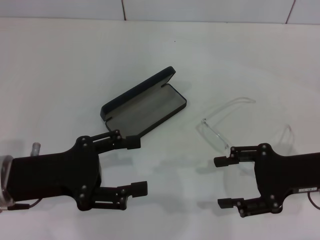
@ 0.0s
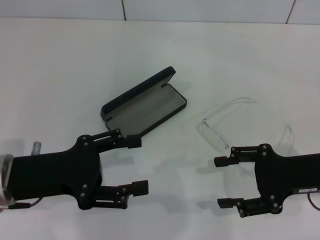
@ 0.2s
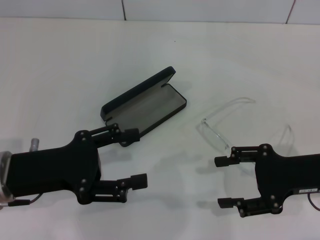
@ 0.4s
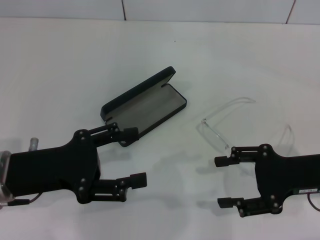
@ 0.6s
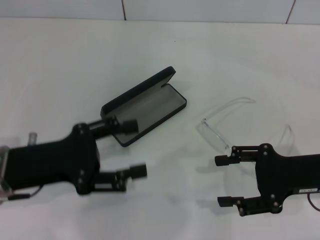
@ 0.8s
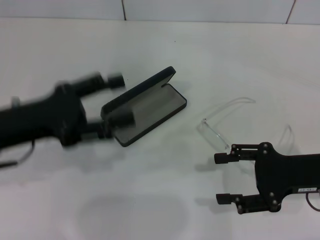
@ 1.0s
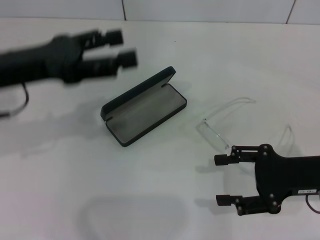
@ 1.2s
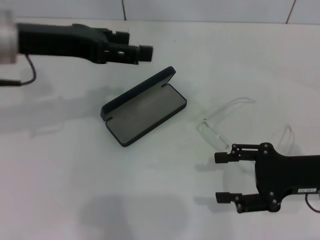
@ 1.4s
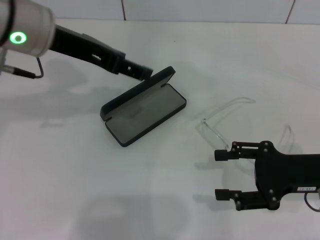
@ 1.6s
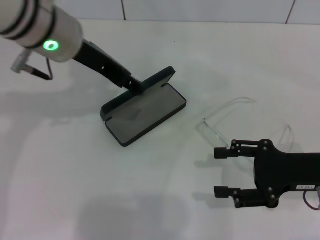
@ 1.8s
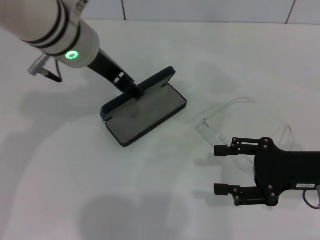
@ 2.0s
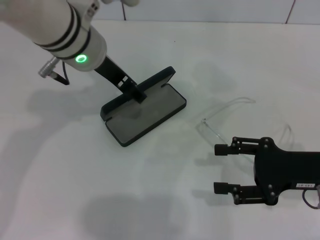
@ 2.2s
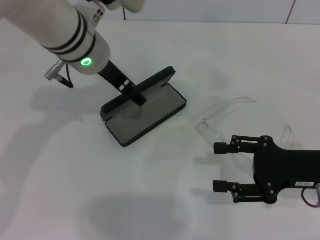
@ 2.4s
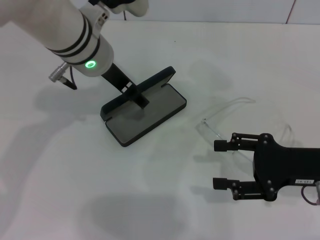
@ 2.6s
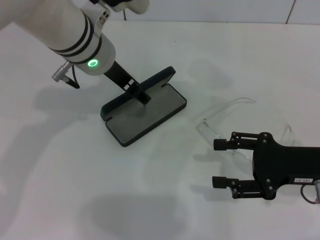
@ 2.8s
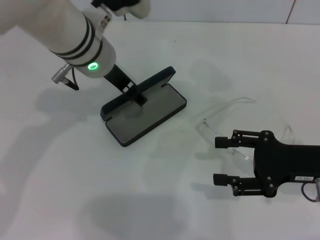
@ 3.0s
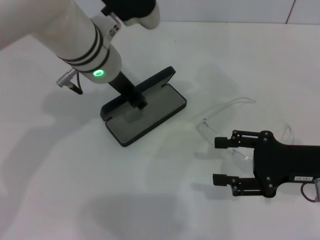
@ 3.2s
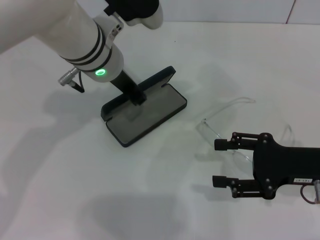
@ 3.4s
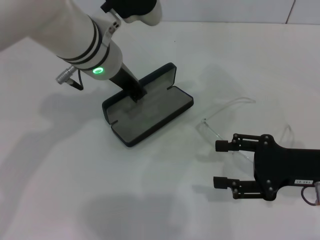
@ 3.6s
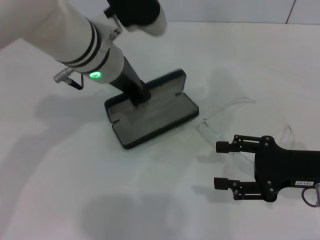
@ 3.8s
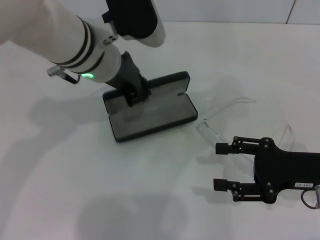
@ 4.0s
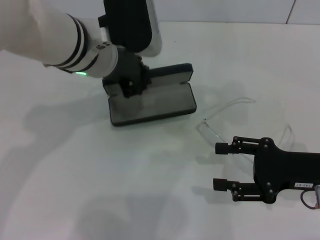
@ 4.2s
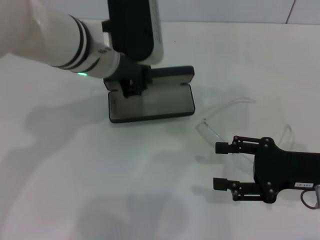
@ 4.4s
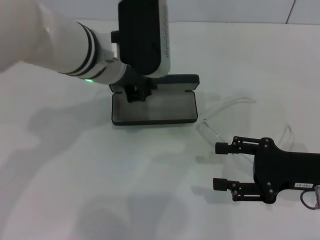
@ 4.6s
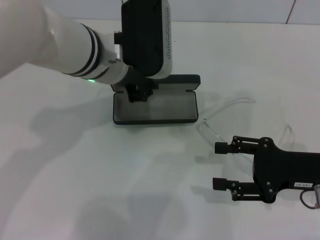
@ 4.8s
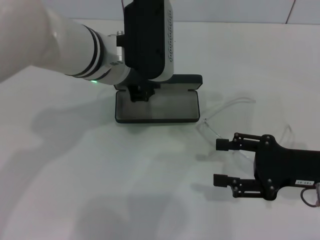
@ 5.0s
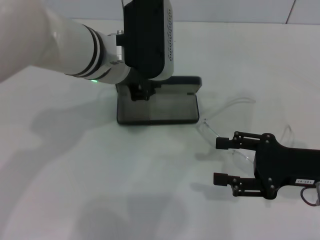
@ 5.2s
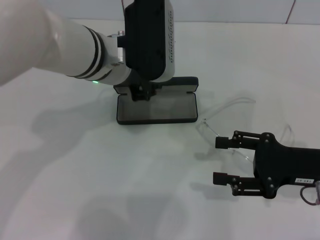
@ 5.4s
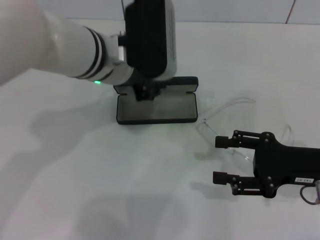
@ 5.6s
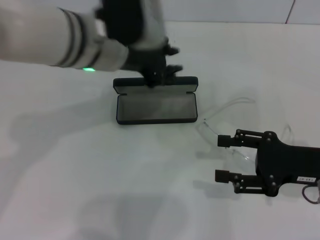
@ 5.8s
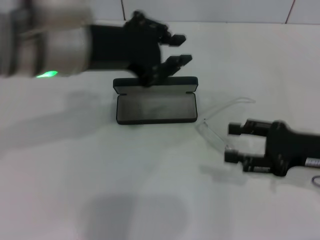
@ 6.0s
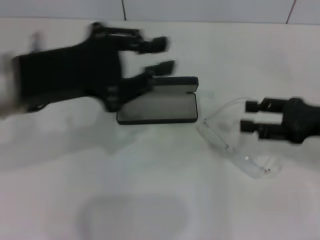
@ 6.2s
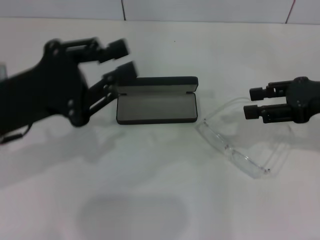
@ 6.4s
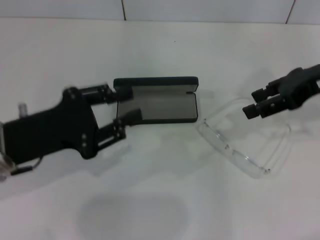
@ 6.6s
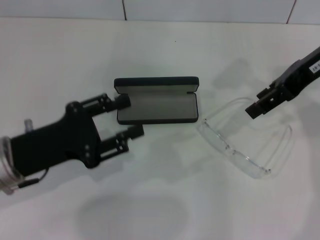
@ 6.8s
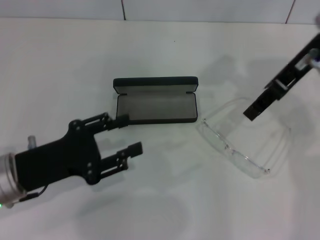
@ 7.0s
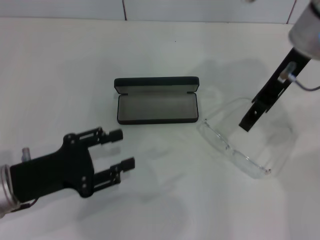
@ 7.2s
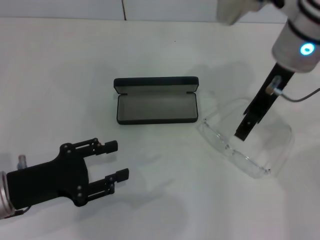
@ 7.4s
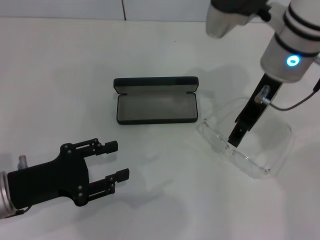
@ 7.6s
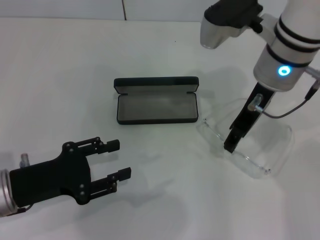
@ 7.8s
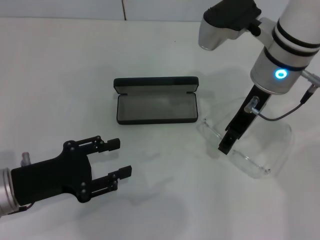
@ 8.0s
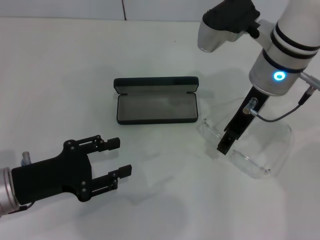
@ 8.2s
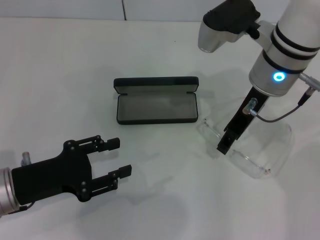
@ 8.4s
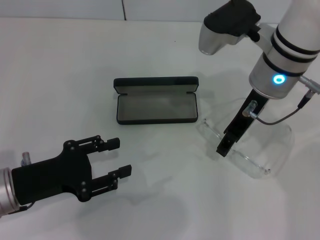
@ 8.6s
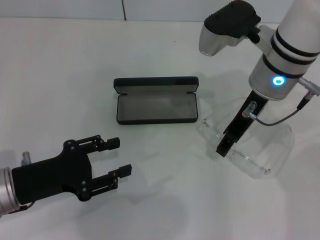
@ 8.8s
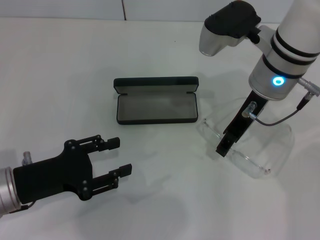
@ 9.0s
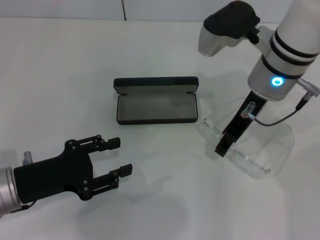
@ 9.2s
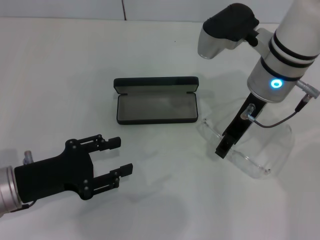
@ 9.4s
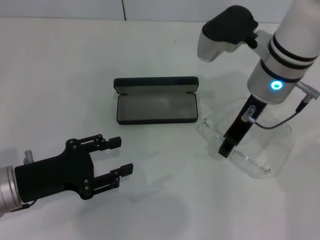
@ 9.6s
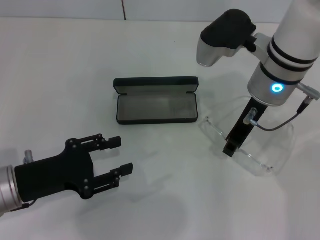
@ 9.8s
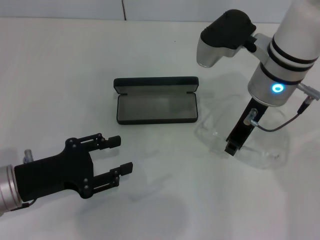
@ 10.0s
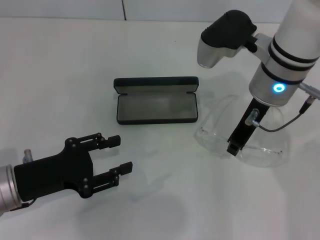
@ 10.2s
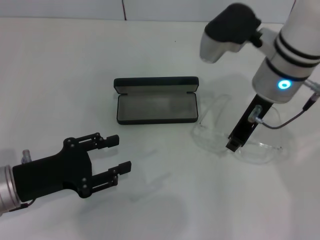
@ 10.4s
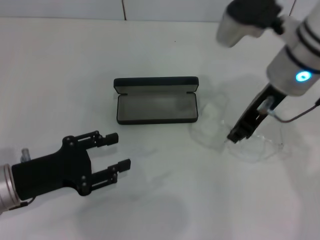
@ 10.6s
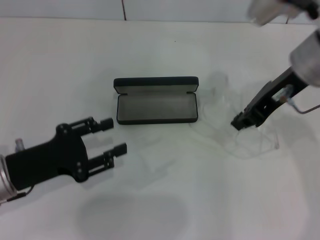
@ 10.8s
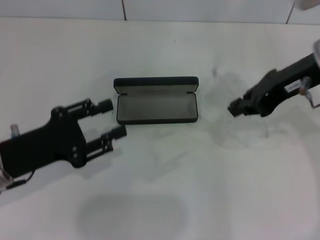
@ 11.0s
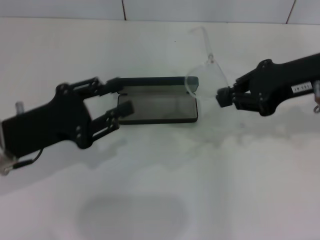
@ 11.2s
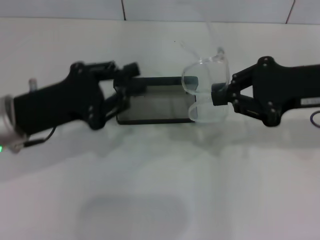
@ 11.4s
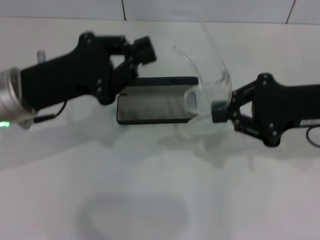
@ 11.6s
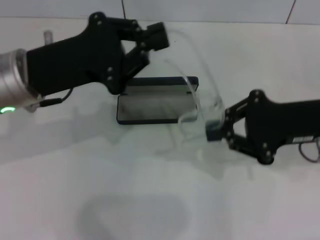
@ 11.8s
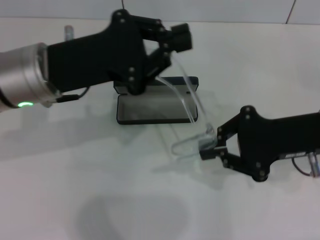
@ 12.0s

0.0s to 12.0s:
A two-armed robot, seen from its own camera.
Step, 0.0s to 3.4s: Grab the glasses case with your left hand.
Step, 3.6s to 5.2s: Place the glasses case in the center of the table with your left hand.
Step, 5.6s to 10.0s: Grab the eyeglass frame with your right hand.
0.0s to 1.6s: The left gripper heads upward, forward and to the right, covering some 20 cm.
1.6s to 3.0s: The left gripper heads to the right and downward, covering roughly 10 cm.
3.0s to 4.4s: The left gripper closes.
4.4s to 6.0s: The left gripper changes place by roughly 10 cm.
6.0s to 7.6s: The right gripper heads to the left, upward and forward, covering some 20 cm; the left gripper goes roughly 20 cm downward, to the left and backward, and opens up.
7.6s to 9.0s: The grippers stay close to where they were, moving slightly.
9.0s to 10.4s: The right gripper closes.
10.4s to 12.0s: The right gripper is displaced to the right and backward by some 15 cm, while the left gripper is displaced upward, forward and to the right by roughly 15 cm, and closes up.

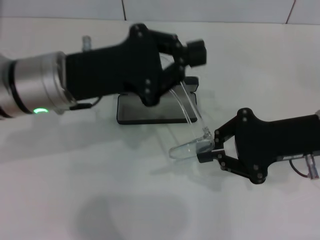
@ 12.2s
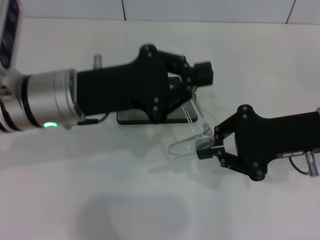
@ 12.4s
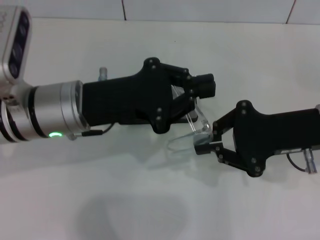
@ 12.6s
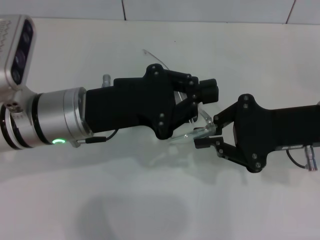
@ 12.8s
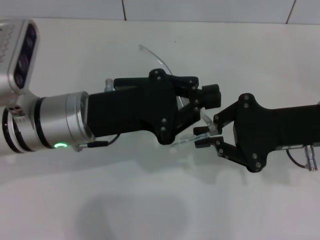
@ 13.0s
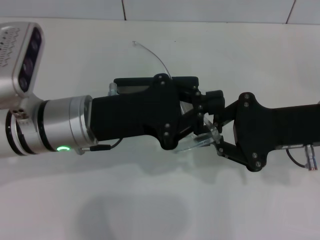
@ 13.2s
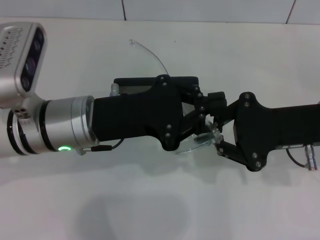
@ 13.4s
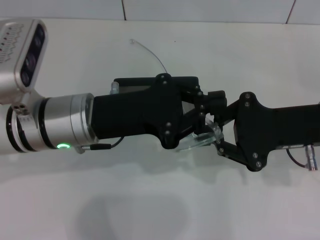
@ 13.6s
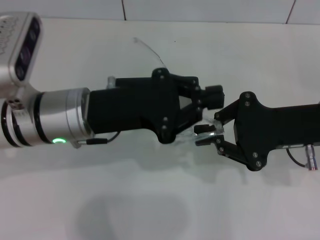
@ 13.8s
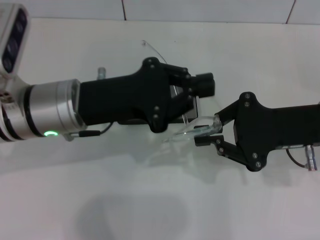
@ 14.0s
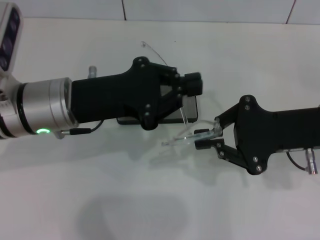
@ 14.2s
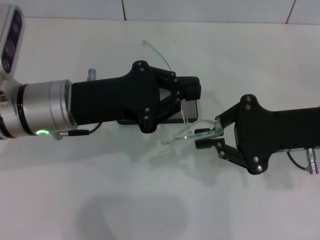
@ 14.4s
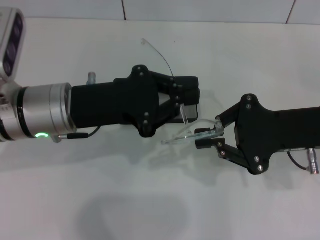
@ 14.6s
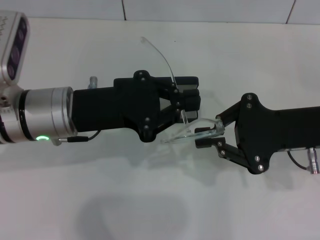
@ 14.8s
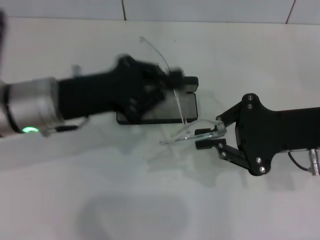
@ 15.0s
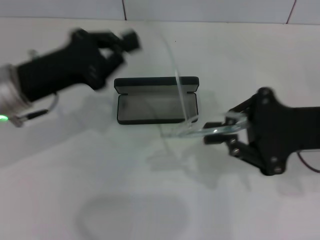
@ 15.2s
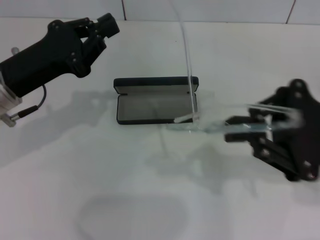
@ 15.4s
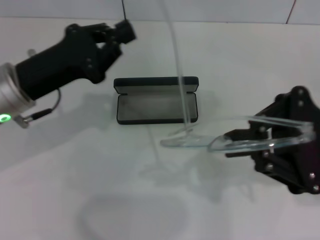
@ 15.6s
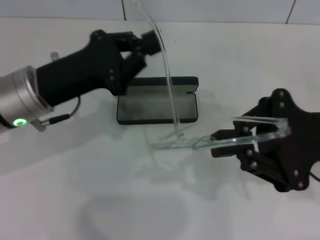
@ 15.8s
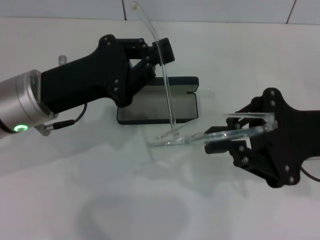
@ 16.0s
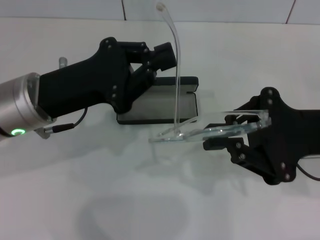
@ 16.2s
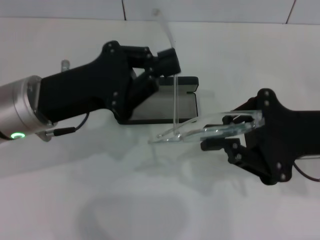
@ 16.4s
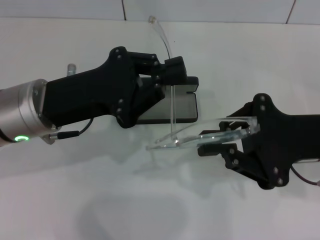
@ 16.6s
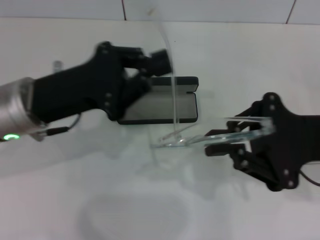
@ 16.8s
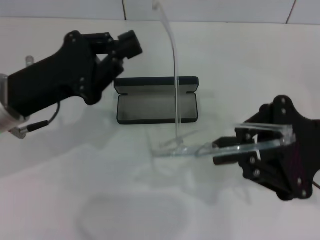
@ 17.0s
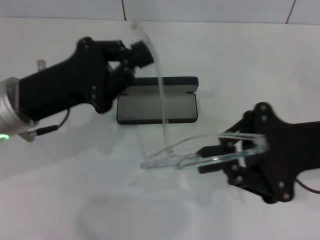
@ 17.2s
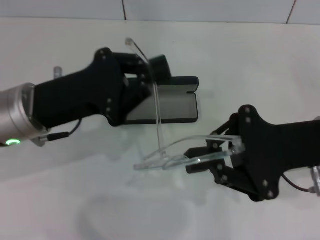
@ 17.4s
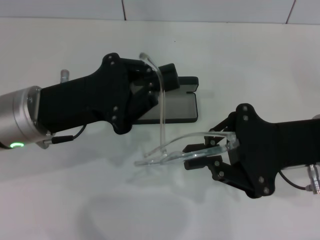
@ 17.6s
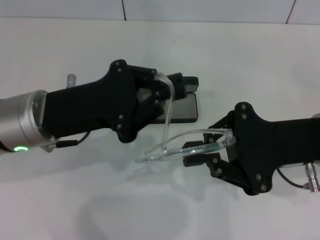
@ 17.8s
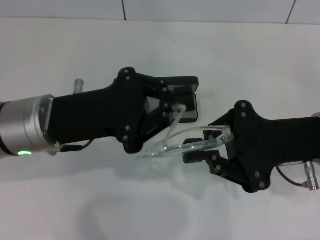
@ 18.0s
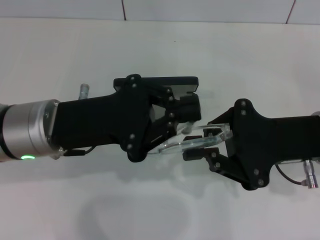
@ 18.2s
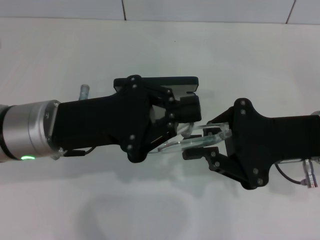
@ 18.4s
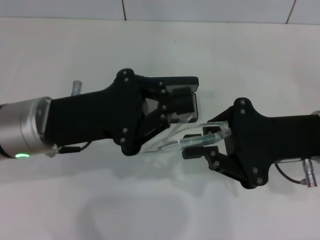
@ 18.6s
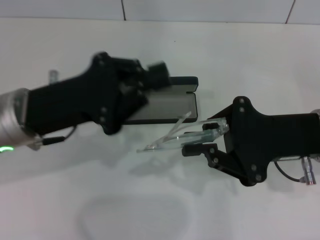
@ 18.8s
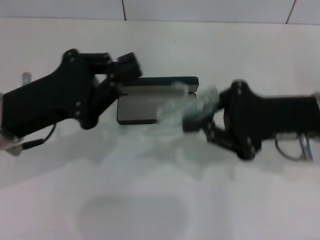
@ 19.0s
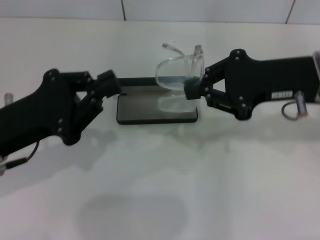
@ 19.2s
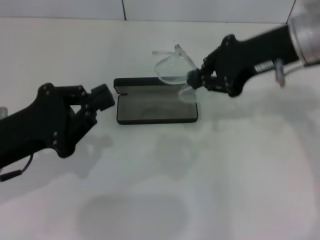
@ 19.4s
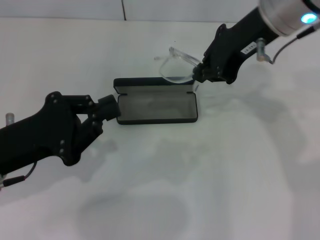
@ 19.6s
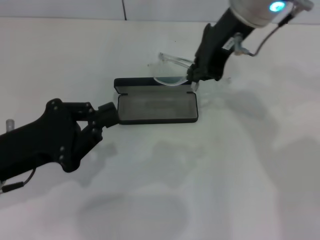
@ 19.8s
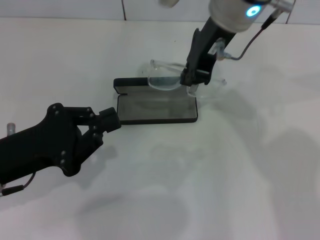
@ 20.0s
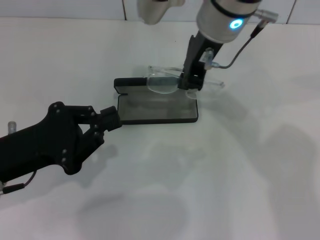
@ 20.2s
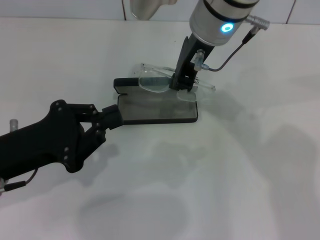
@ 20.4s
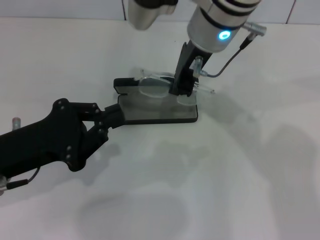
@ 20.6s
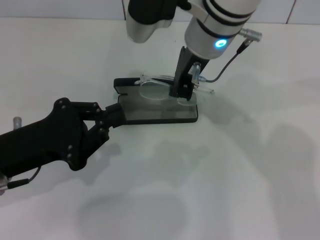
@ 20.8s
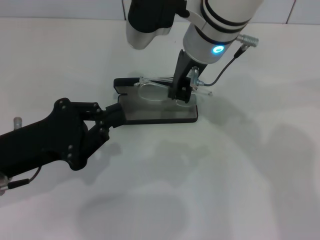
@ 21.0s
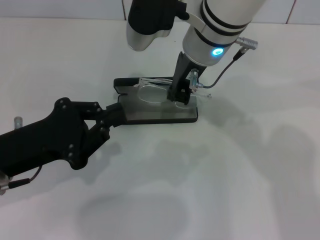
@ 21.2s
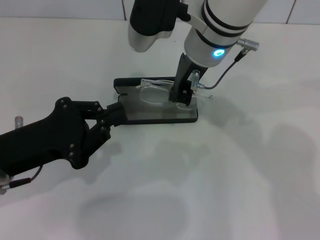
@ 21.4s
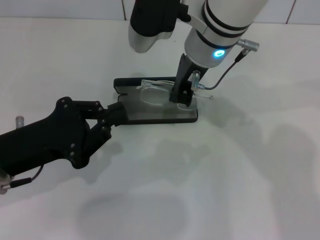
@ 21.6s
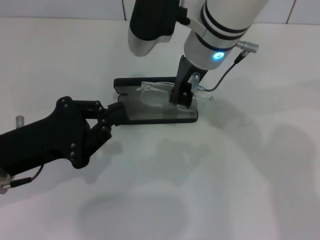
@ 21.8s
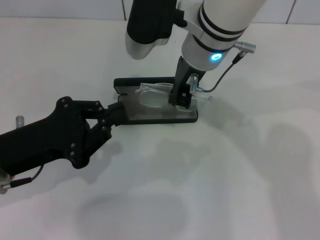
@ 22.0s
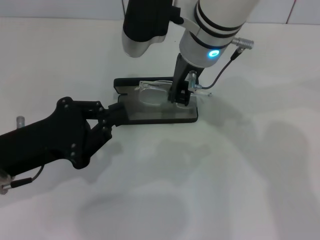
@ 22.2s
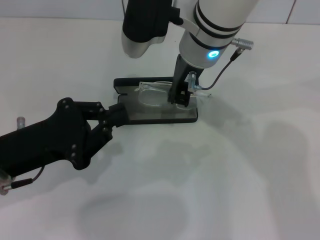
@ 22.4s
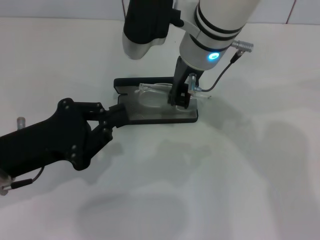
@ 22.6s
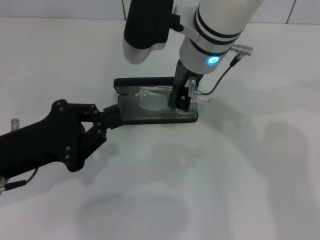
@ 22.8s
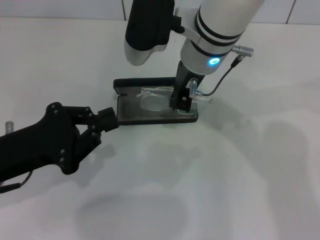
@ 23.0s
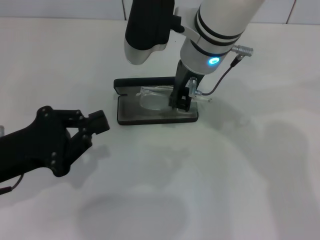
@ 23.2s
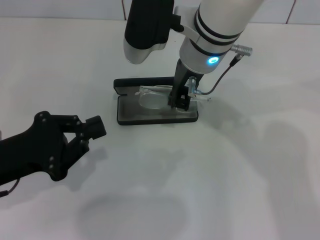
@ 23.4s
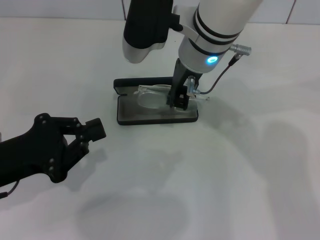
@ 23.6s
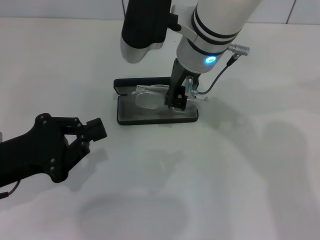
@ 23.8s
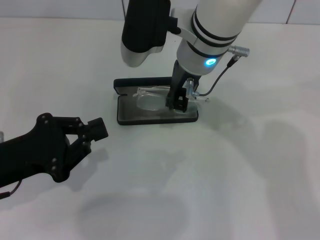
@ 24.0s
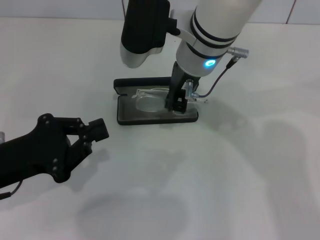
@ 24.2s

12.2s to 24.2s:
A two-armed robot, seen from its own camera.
Step, 12.2s to 18.4s: Lift the glasses with your right hand.
13.8s to 15.2s: The left gripper goes about 10 cm to the left.
18.2s to 19.8s: The right gripper shifts about 20 cm upward, forward and to the left, while the left gripper shifts about 10 cm to the left.
19.8s to 21.2s: The right gripper moves downward and to the left, some 10 cm.
21.2s to 22.6s: Both grippers stay put.
22.6s to 24.2s: The grippers make only small movements.
